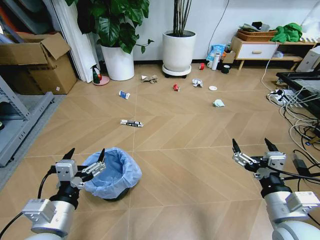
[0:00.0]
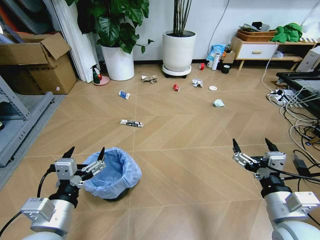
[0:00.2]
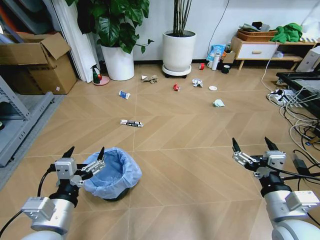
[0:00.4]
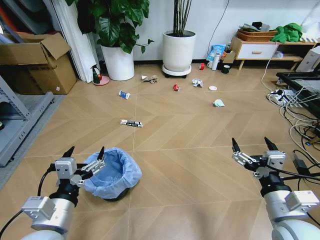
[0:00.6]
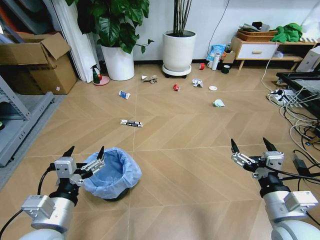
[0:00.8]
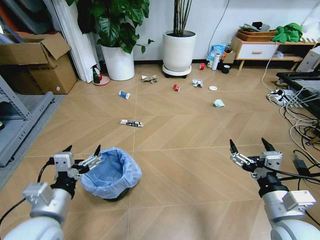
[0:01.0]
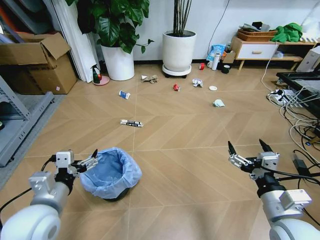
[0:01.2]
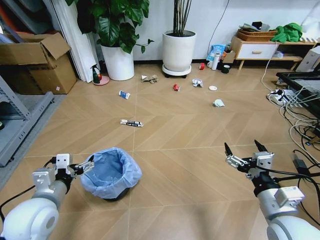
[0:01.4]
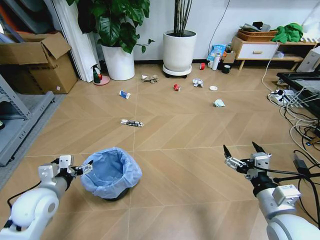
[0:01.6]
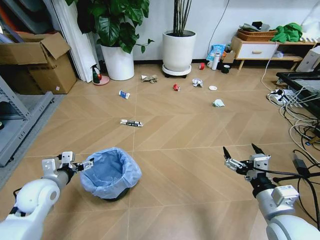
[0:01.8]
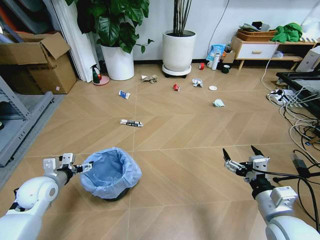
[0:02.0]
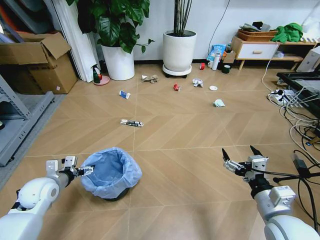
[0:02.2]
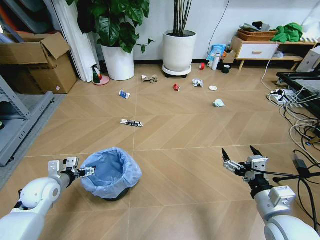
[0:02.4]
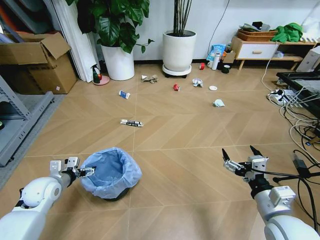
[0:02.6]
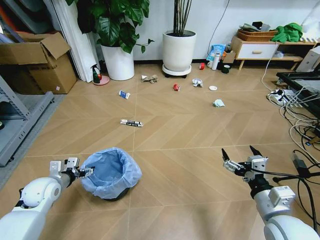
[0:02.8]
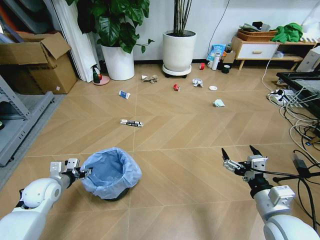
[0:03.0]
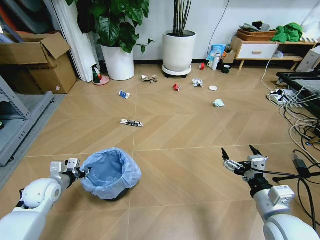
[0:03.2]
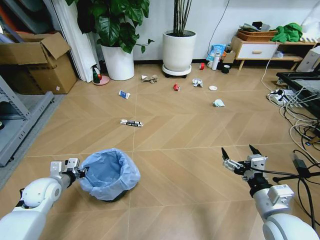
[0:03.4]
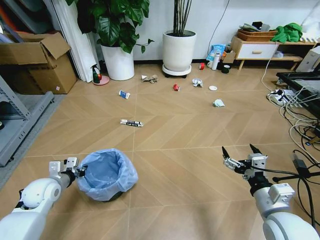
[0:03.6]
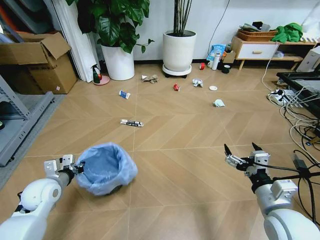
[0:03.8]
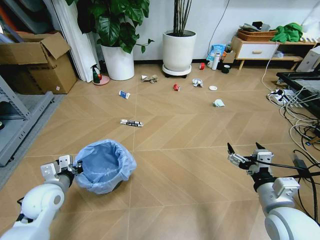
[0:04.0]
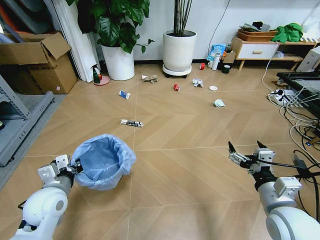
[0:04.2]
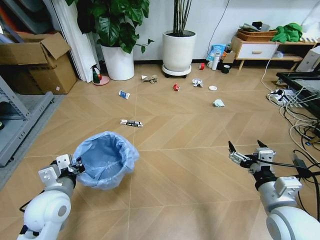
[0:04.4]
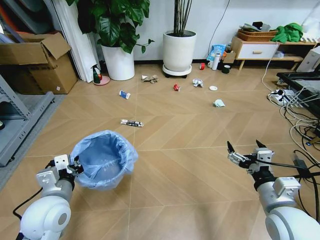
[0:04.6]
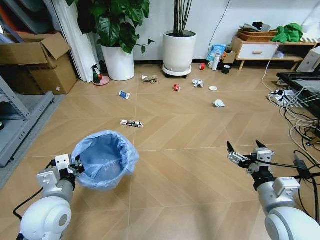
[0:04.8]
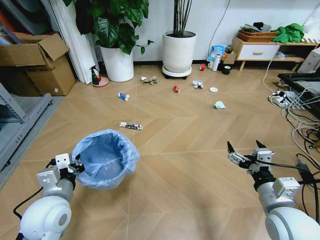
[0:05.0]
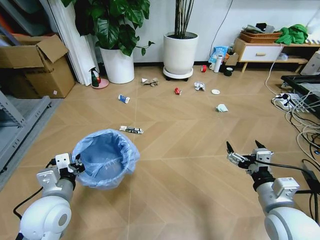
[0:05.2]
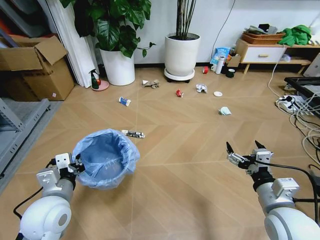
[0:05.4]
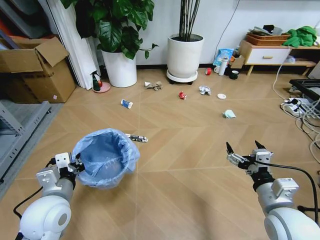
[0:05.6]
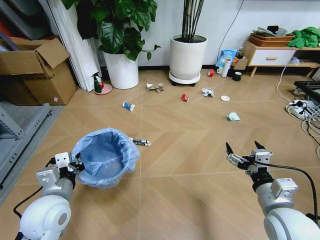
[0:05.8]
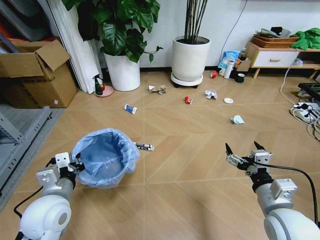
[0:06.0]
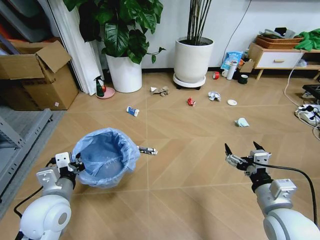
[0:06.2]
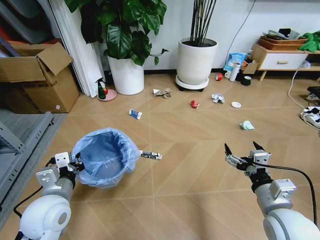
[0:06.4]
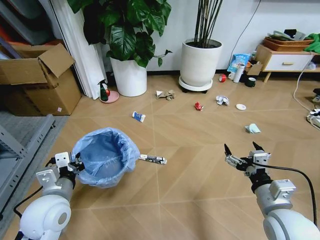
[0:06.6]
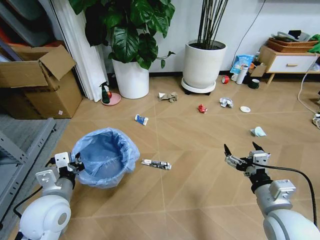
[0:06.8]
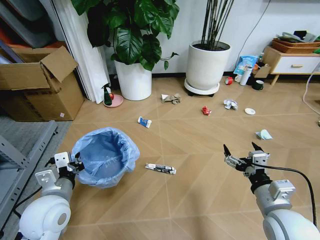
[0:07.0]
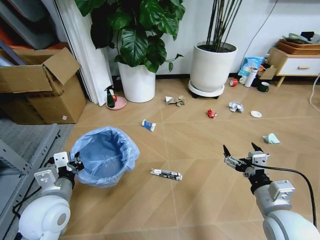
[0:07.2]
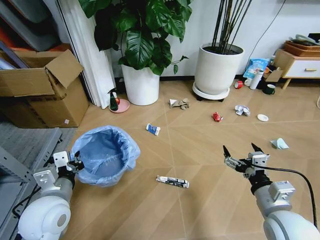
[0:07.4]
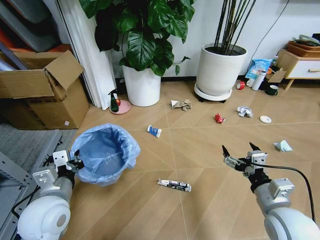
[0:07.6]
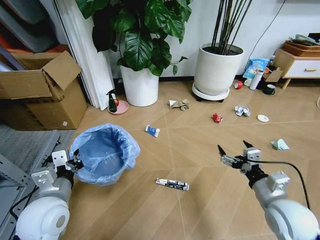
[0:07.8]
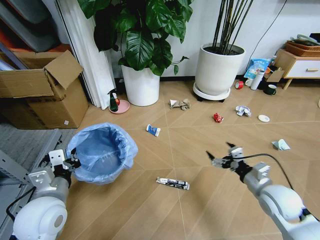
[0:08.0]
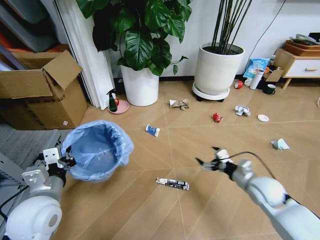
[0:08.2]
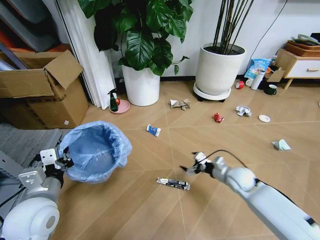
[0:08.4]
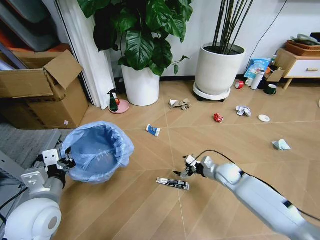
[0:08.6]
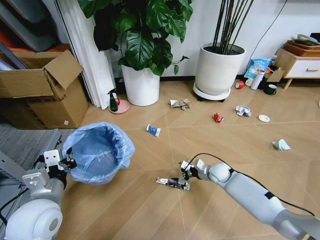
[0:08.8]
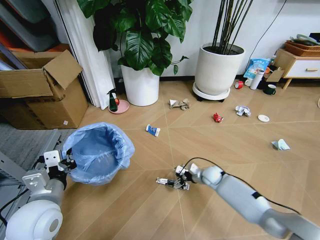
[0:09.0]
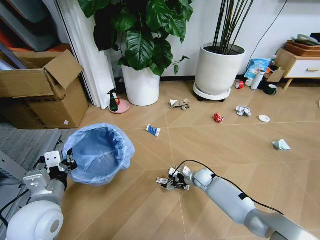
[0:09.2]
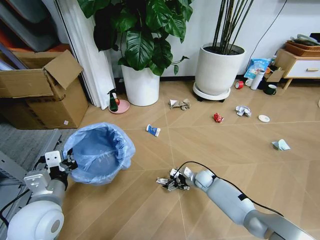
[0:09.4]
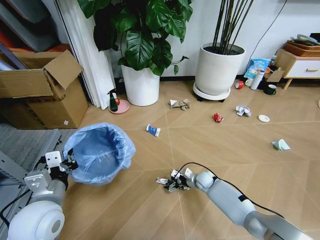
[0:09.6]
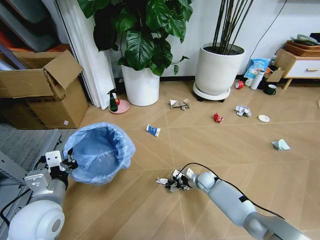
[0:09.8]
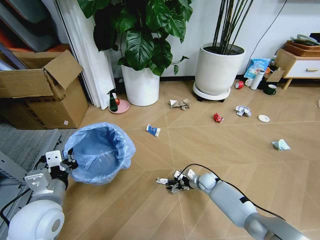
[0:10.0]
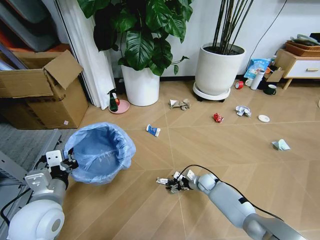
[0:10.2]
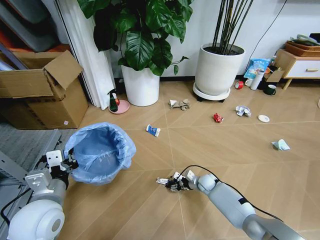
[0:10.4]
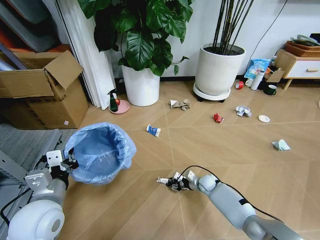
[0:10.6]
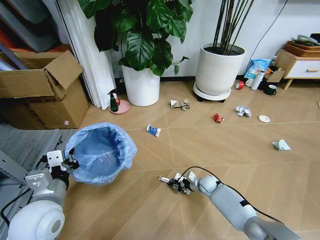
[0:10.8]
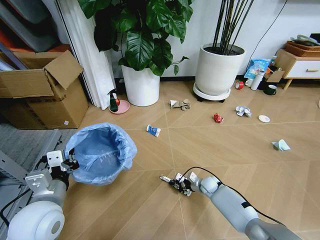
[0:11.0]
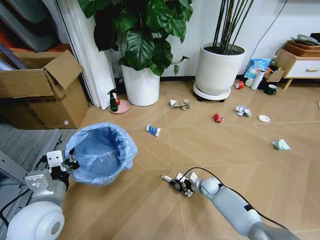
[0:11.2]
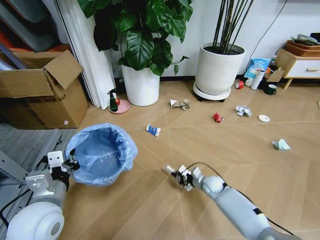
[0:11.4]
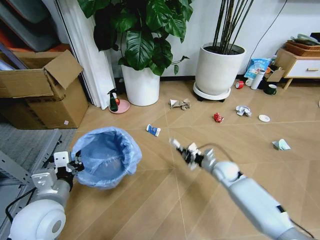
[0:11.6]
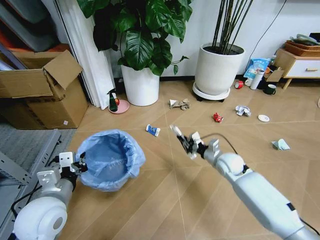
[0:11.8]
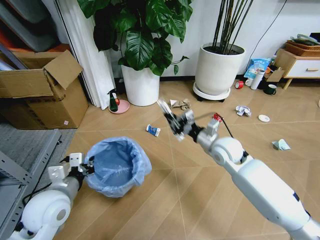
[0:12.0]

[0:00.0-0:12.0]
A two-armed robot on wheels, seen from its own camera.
Task of the whole recording: Pick up the trash bin and place the garbage on the floor into it.
0:01.6 to 0:03.0: The left gripper moves downward, forward and to the left, roughly 10 cm, and closes its fingers.
0:03.0 to 0:04.4: The left gripper heads to the right, backward and upward, covering about 15 cm, and closes its fingers.
0:07.6 to 0:09.0: The right gripper heads forward and downward, covering roughly 35 cm.
0:09.0 to 0:10.4: The right gripper heads downward, covering approximately 5 cm, and closes.
0:10.4 to 0:12.0: The right gripper is displaced upward by roughly 30 cm, and closes.

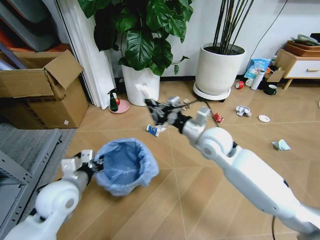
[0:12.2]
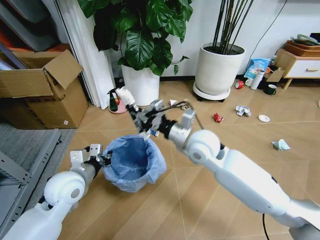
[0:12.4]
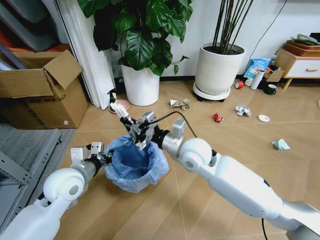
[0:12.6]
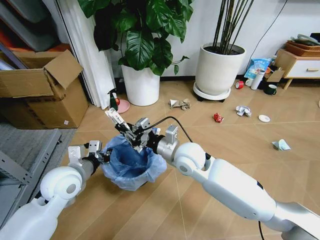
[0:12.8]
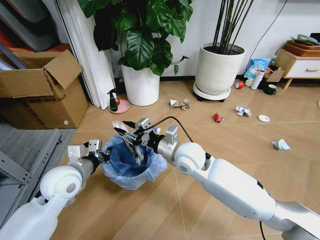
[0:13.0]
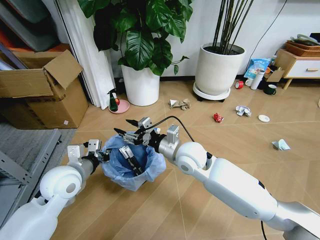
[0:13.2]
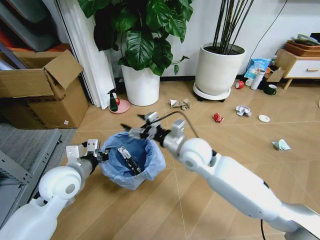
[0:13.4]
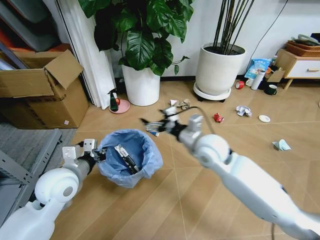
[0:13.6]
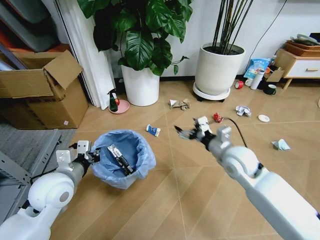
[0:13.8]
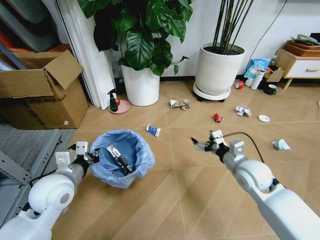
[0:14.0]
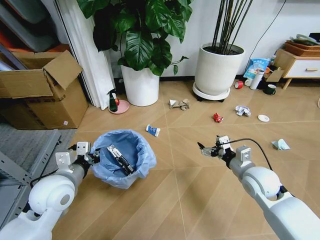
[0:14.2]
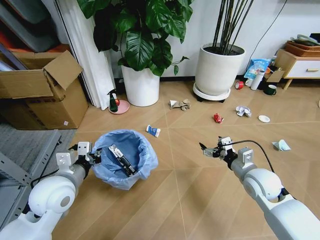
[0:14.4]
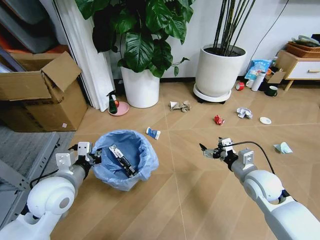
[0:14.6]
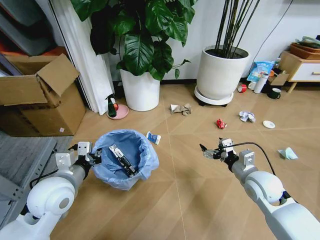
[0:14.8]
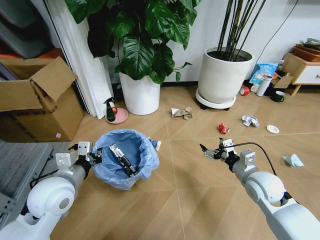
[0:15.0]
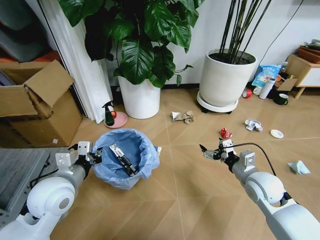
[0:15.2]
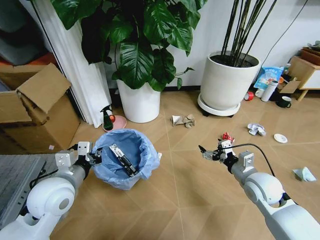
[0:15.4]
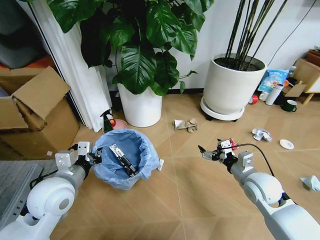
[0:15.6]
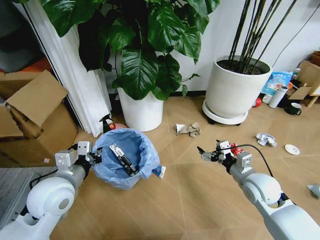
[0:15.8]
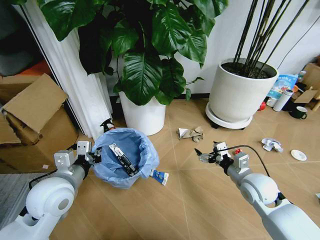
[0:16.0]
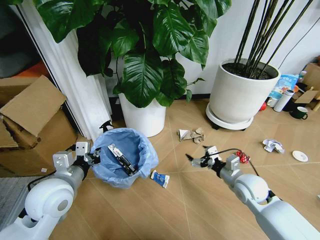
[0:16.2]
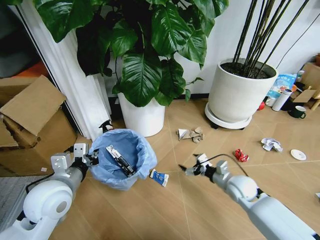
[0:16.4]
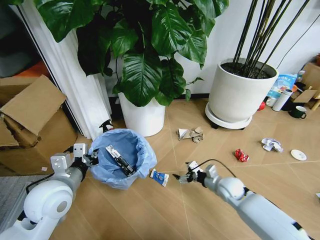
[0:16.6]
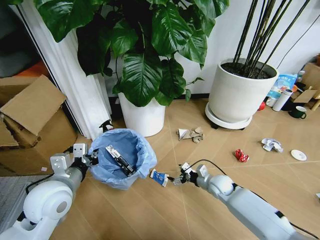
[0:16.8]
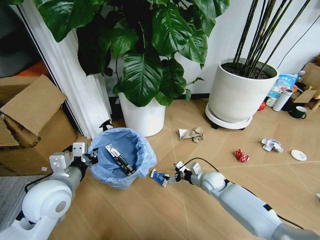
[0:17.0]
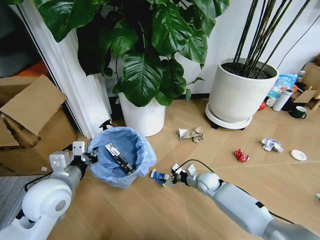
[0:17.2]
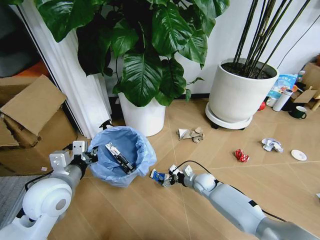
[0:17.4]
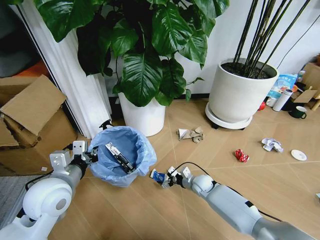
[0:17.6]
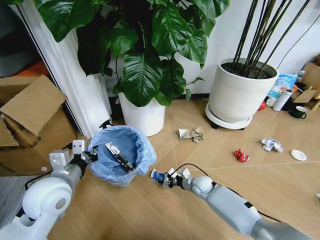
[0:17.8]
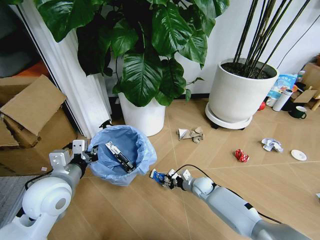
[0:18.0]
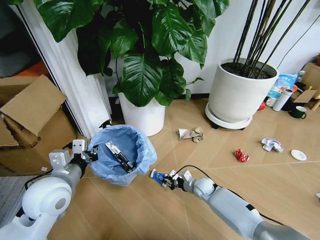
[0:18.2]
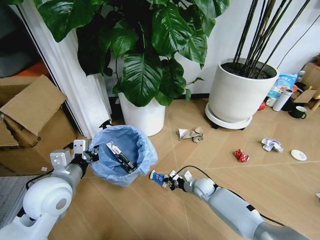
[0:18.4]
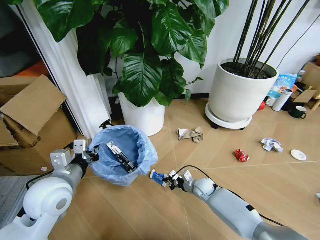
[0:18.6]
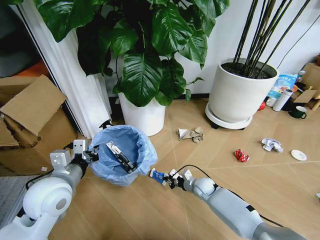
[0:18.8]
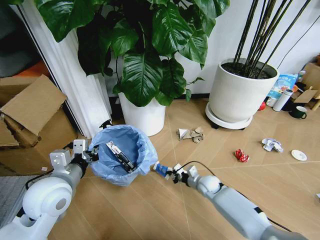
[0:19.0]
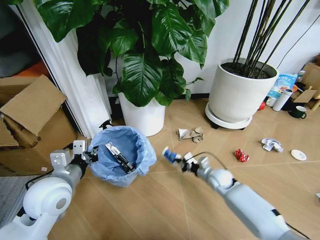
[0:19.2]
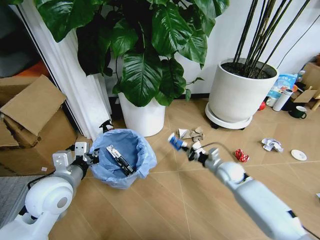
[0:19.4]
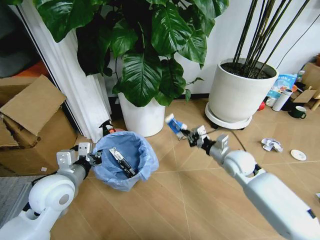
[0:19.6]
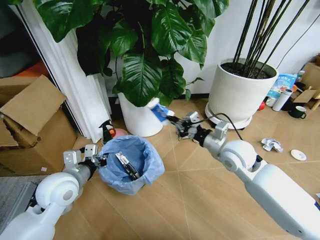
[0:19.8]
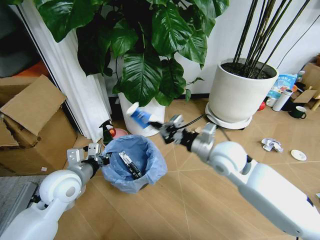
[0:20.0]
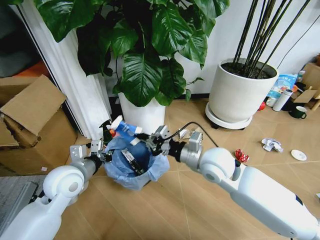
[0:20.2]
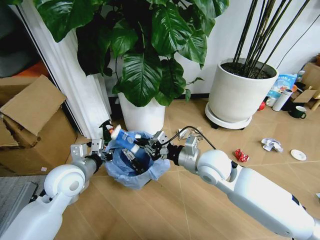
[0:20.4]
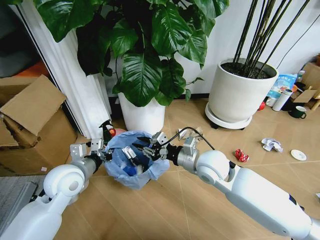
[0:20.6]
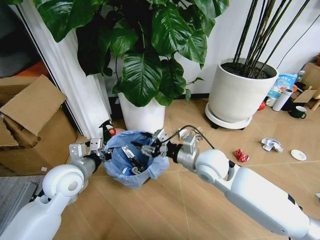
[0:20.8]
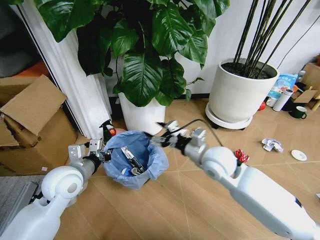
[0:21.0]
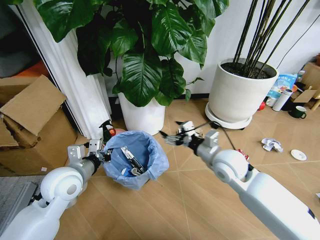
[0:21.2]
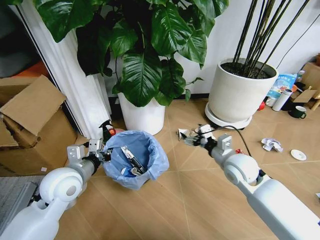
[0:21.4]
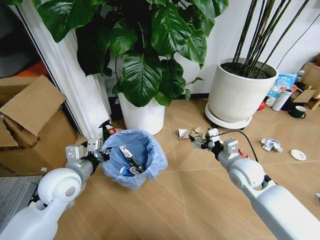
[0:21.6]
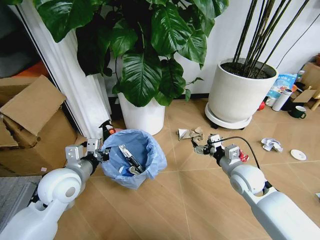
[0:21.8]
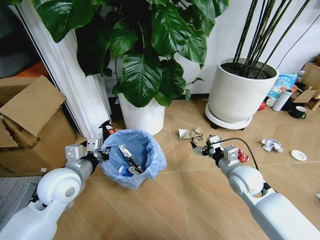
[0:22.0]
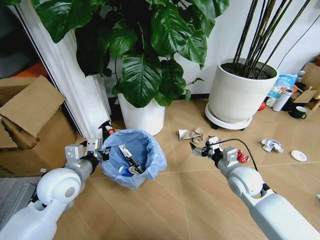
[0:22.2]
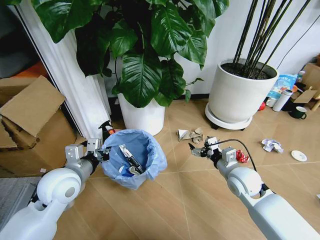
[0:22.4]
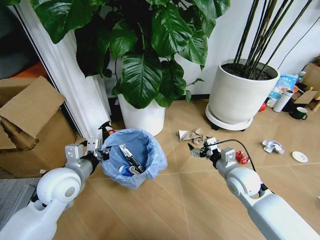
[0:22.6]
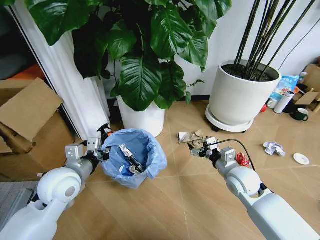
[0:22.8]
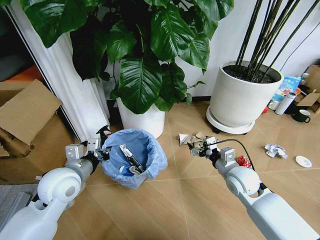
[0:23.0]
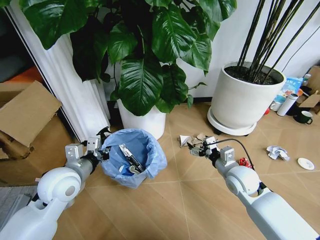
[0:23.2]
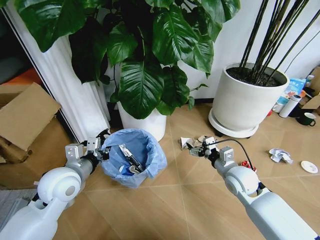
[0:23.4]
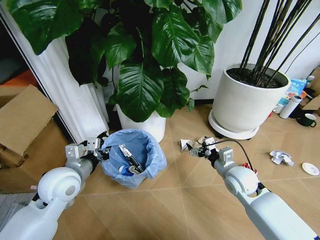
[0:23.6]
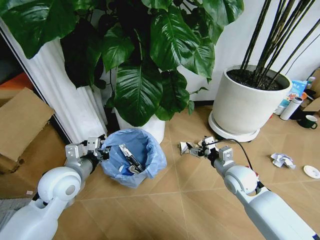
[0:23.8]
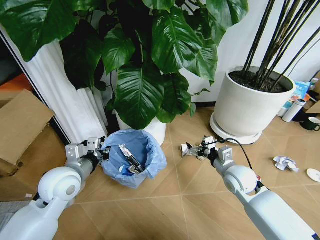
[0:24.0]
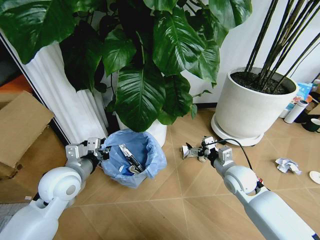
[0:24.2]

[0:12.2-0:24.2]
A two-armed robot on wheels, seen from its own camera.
Task of the whole recording: Pick up the trash bin and place the garbage on the floor into it.
0:12.2 to 0:13.8: The right gripper travels to the right by about 10 cm, and opens up.
0:13.8 to 0:15.2: The right gripper heads to the right, downward and backward, covering some 10 cm.
0:15.2 to 0:16.6: The right gripper moves downward, approximately 15 cm.
0:16.6 to 0:18.2: The right gripper moves downward and to the left, about 10 cm, and closes its fingers.
0:18.2 to 0:19.8: The right gripper travels upward by some 30 cm.
0:19.8 to 0:21.2: The right gripper goes to the left and returns, some 10 cm each way, and opens up.
0:21.2 to 0:22.6: The right gripper heads downward and to the right, covering some 10 cm.
